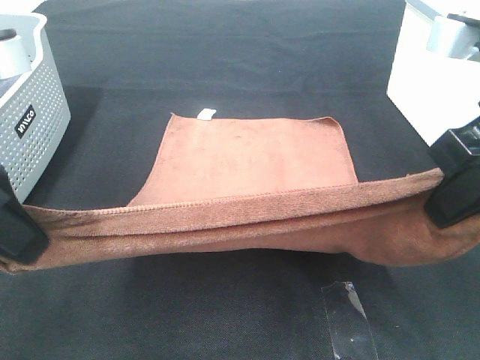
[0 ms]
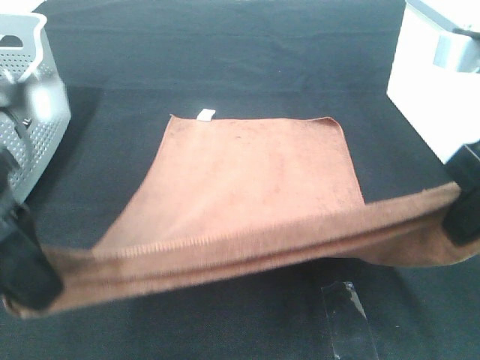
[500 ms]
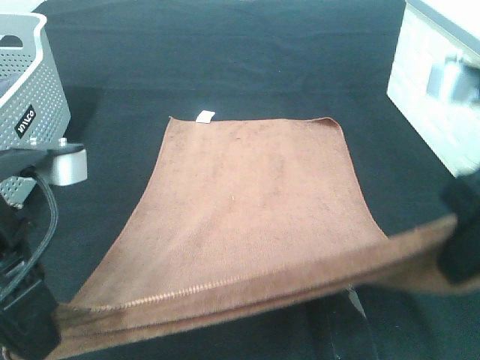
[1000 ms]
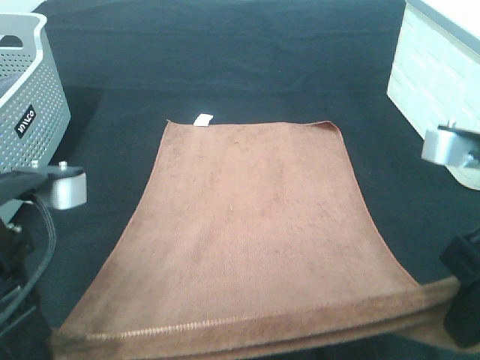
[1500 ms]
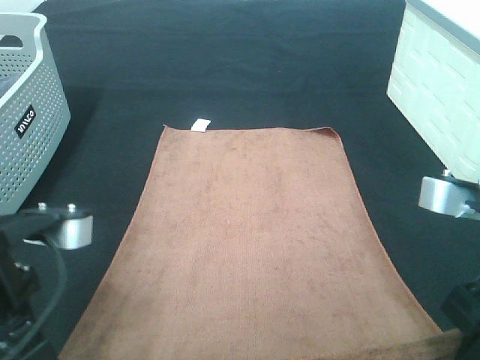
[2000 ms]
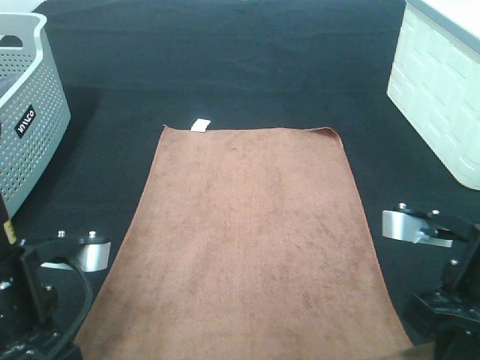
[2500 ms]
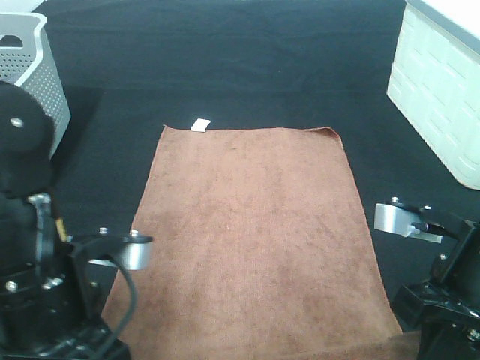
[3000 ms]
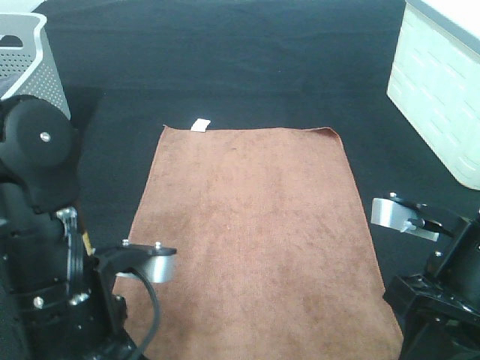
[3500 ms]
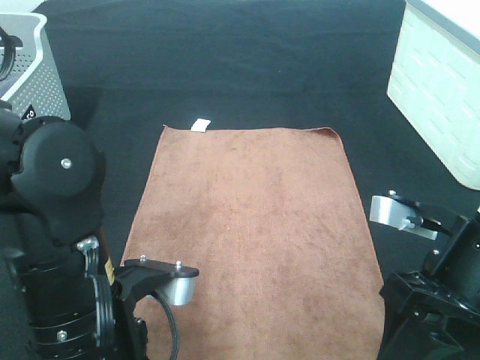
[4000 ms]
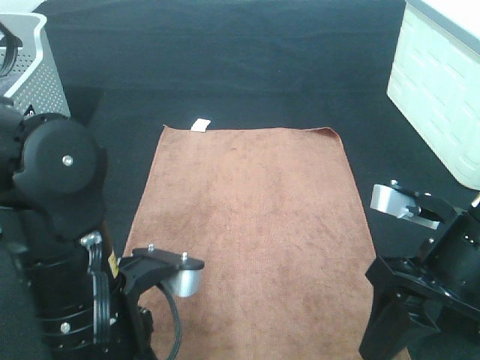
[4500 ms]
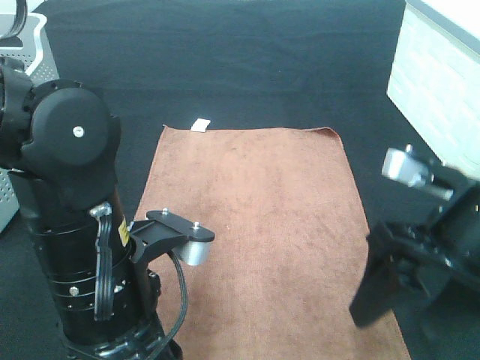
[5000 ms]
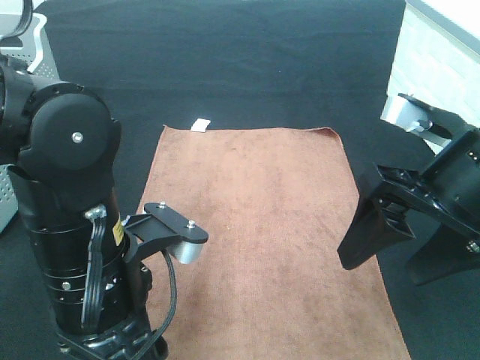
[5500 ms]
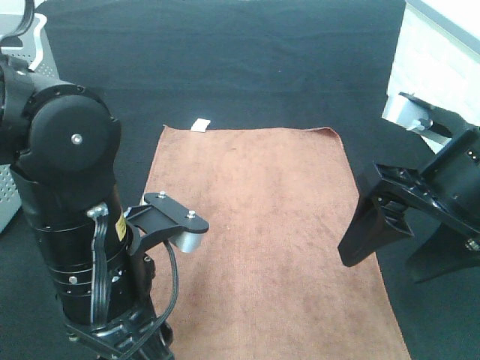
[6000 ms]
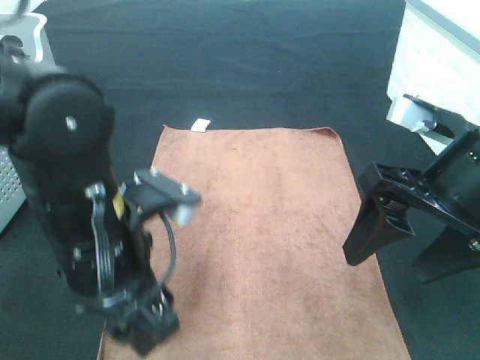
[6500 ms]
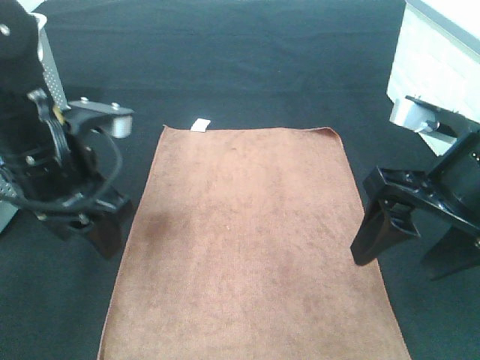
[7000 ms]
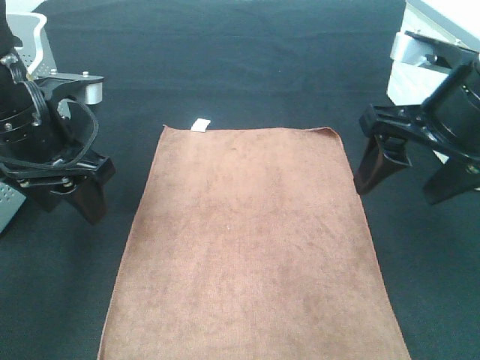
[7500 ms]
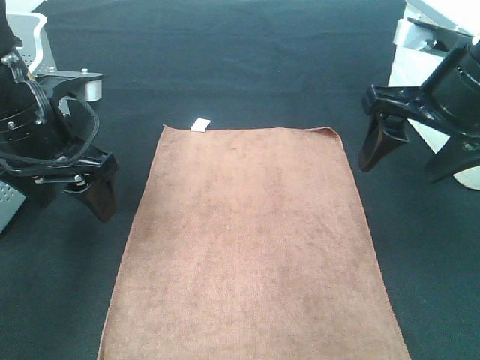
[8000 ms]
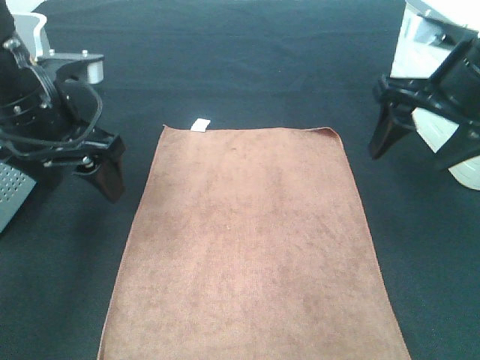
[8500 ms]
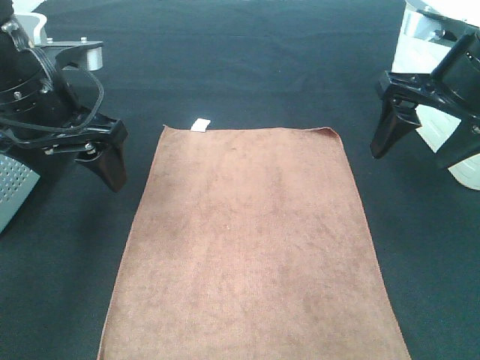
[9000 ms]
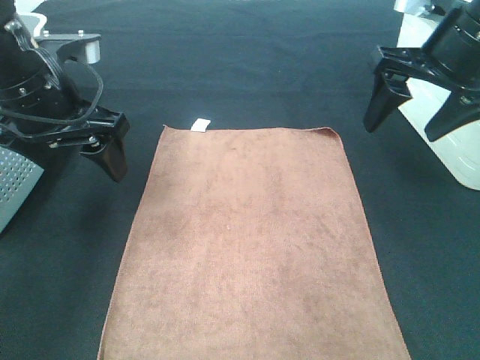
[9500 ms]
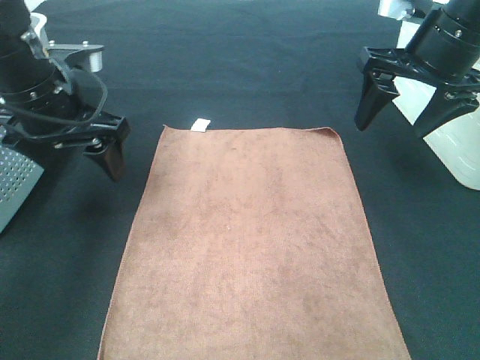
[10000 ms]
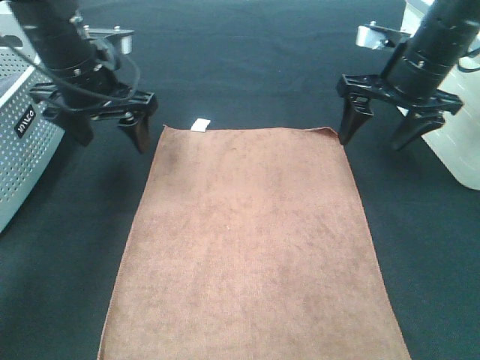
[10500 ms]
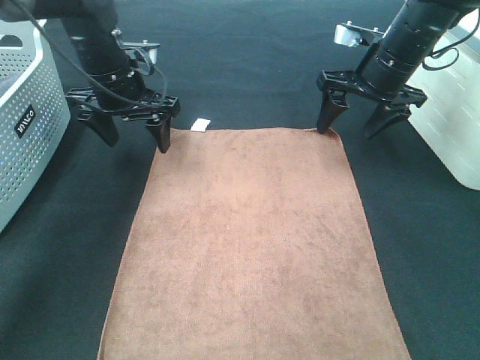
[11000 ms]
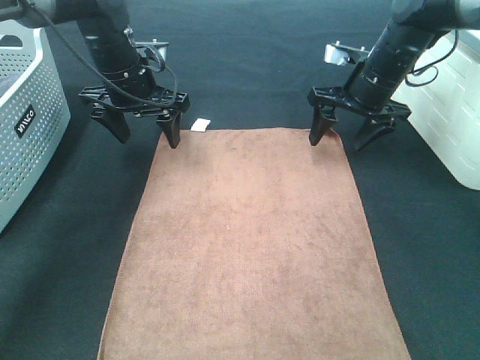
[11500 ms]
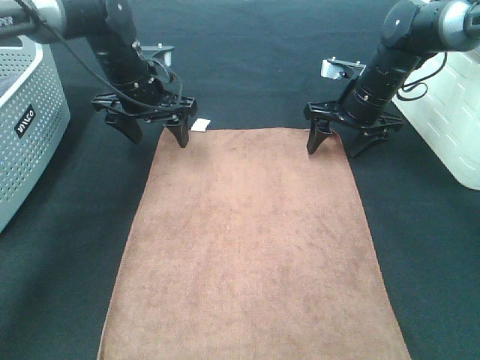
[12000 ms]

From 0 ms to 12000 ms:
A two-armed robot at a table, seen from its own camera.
Task of the whole recording: Remove the towel and place it.
From 0 ms to 2000 ms: The right gripper is displaced downward and backward by roughly 10 cm. The left gripper is displaced downward by approximately 10 cm.
From 2000 ms to 4000 ms: The left gripper goes approximately 10 cm to the right, and opens up. The right gripper changes place by some 5 cm, and opens up.
From 4000 ms to 6000 ms: The right gripper travels upward by about 5 cm.
From 6000 ms to 8000 ms: The left gripper shifts some 15 cm forward and to the left; the right gripper heads forward, covering about 10 cm.
From 8000 ms to 10000 ms: The right gripper heads forward, covering some 10 cm.
From 10000 ms to 12000 ms: The right gripper heads downward and forward, covering some 20 cm, while the left gripper heads forward and downward, covering some 15 cm.

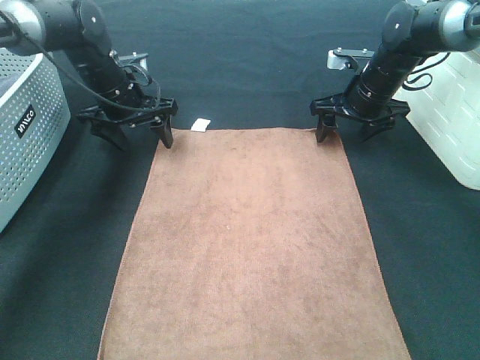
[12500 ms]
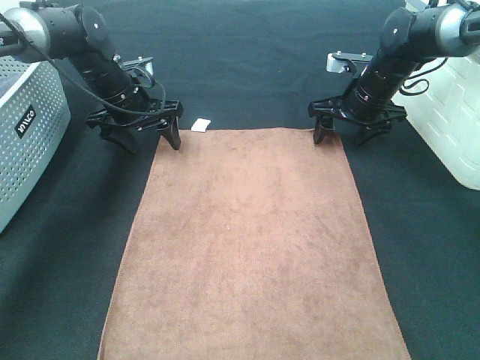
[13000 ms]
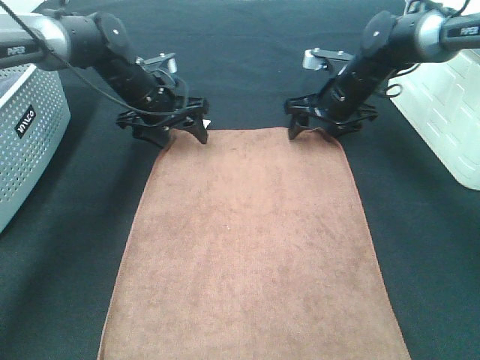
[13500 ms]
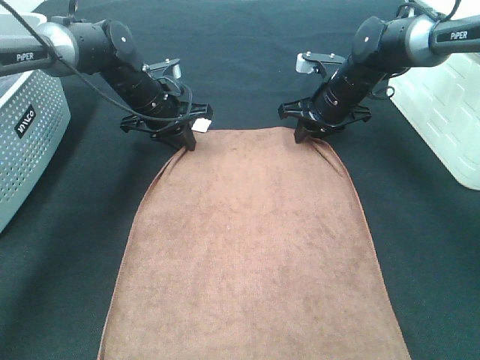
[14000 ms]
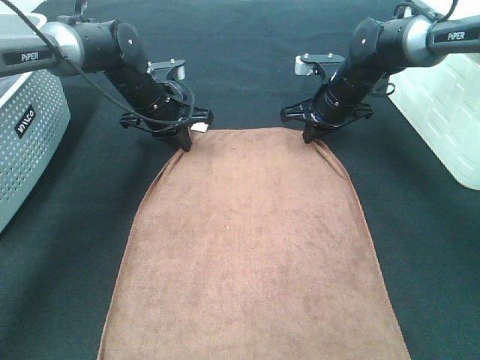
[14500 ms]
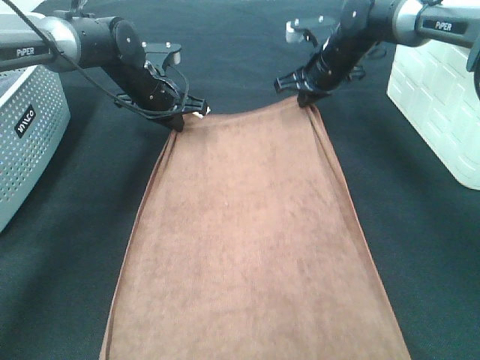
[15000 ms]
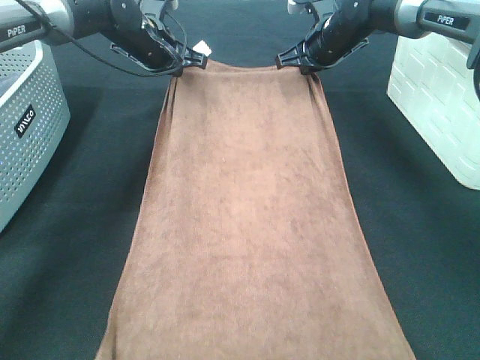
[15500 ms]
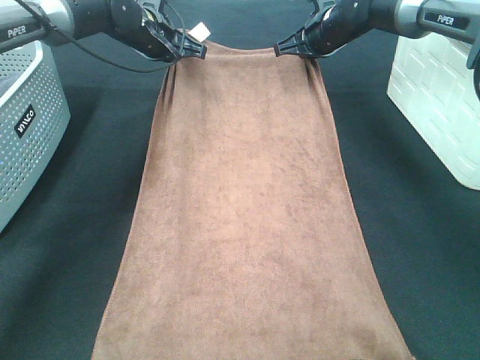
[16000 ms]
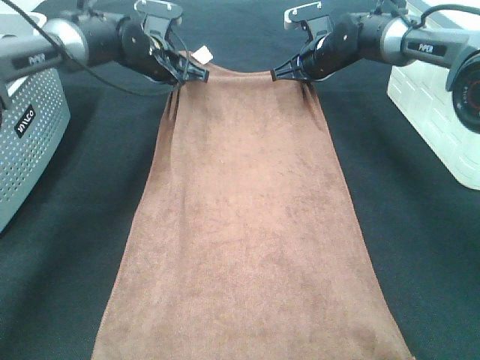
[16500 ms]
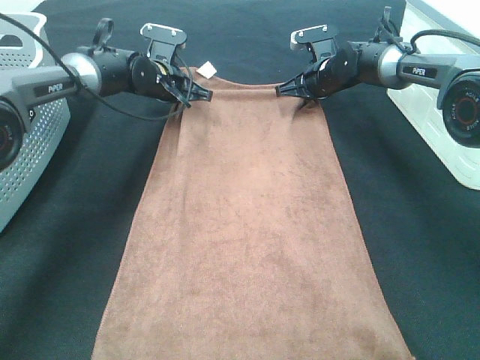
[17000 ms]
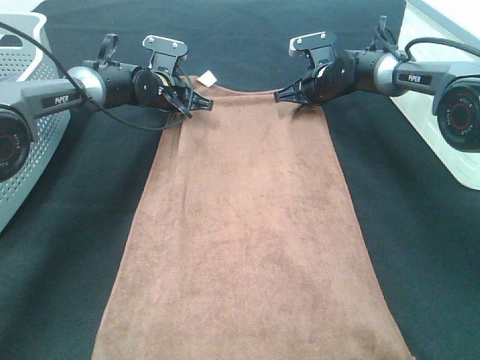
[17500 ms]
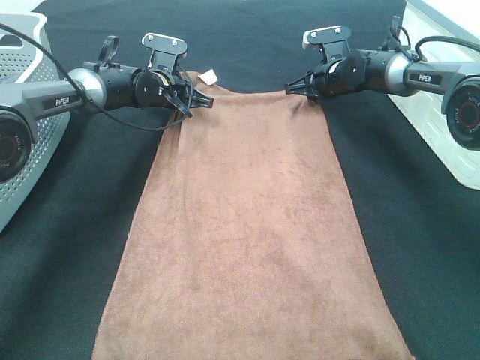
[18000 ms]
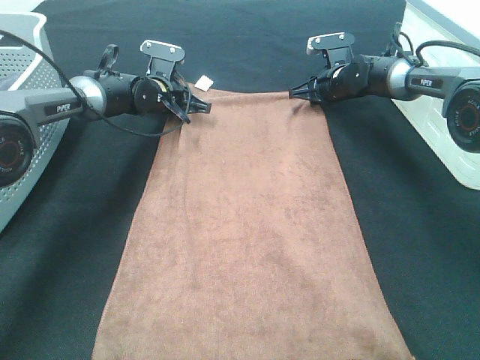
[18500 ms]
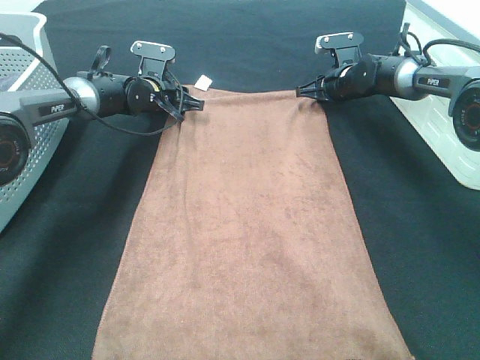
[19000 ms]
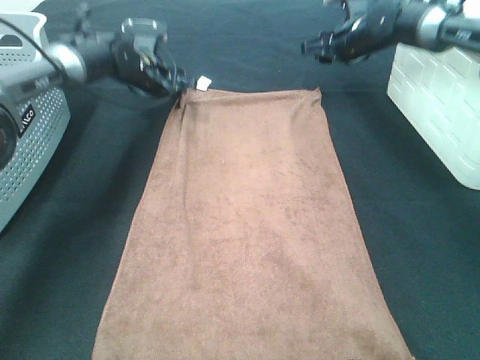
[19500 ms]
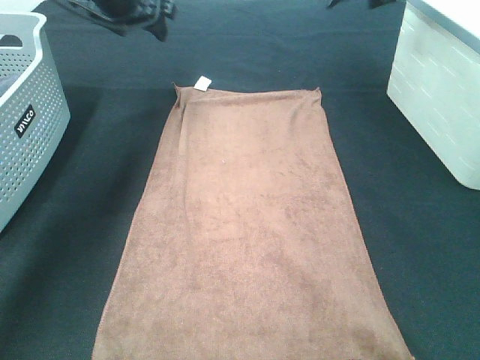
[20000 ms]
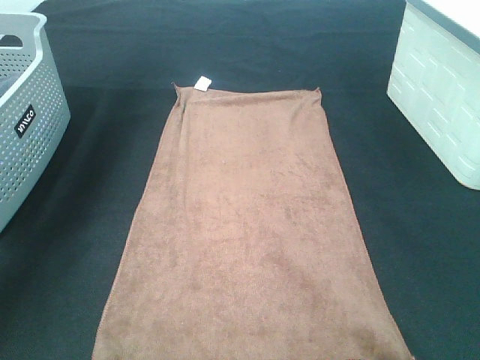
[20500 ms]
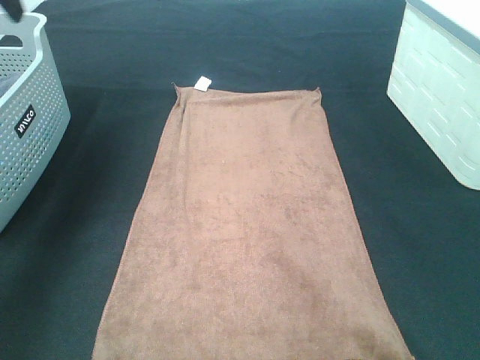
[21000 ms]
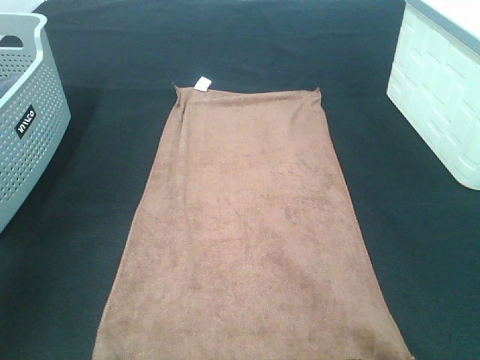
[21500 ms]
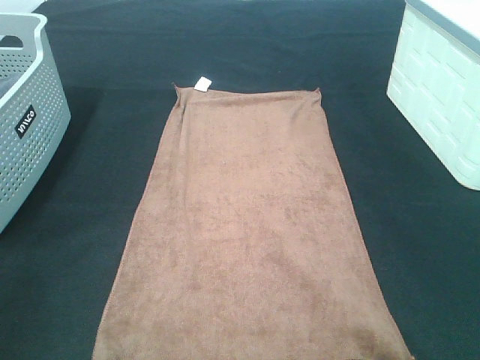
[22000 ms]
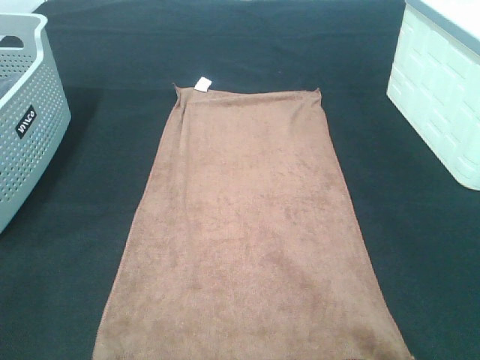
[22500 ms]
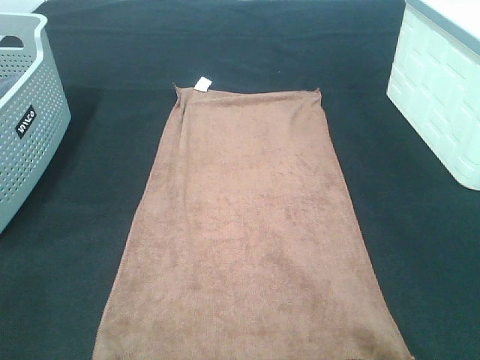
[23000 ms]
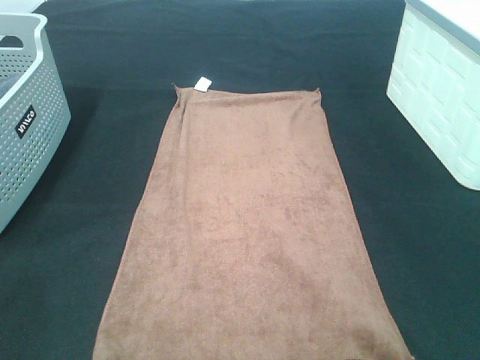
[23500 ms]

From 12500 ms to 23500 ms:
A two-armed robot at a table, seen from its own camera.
Task of the whole recording: Remove the towel and place it.
From 12500 ms to 14500 ms: The left gripper changes place by some 5 cm, and closes; the right gripper moves about 5 cm, and closes up.
From 14500 ms to 16000 ms: The right gripper moves upward and forward, about 10 cm. The left gripper heads upward, covering approximately 10 cm.
From 16000 ms to 18000 ms: The grippers both shift downward by approximately 10 cm. The right gripper opens.
From 18000 ms to 20000 ms: Both grippers travel together upward, some 20 cm. The left gripper opens. The right gripper opens.
From 20000 ms to 21500 ms: Both grippers travel together backward, about 40 cm.

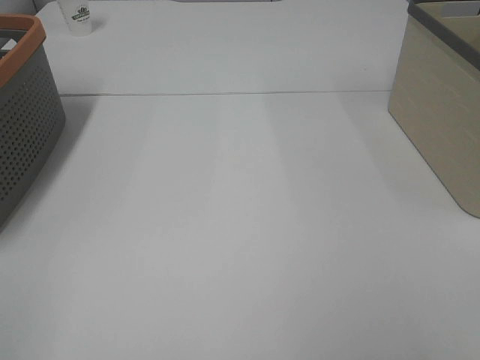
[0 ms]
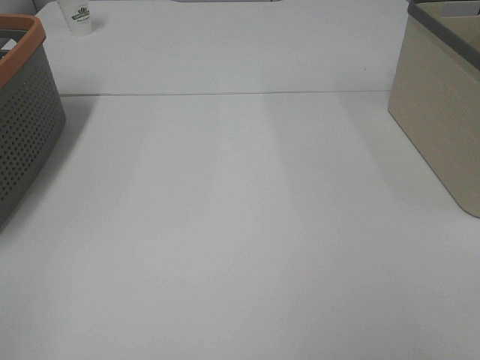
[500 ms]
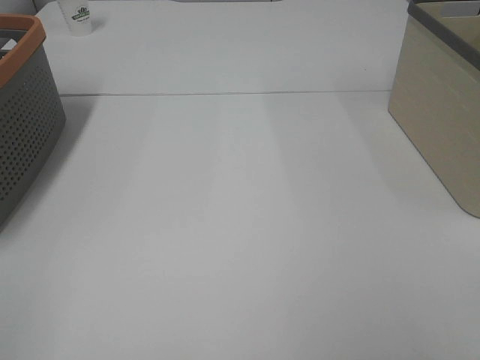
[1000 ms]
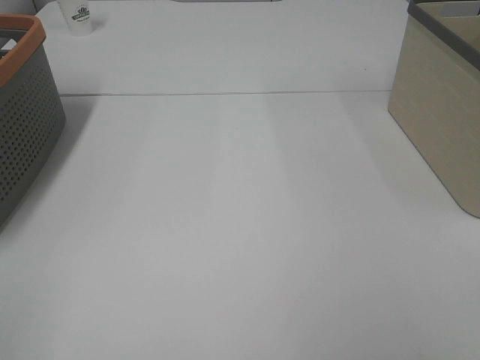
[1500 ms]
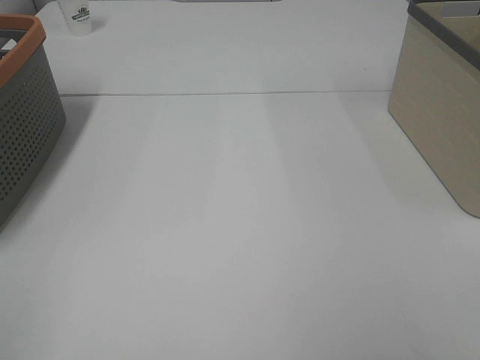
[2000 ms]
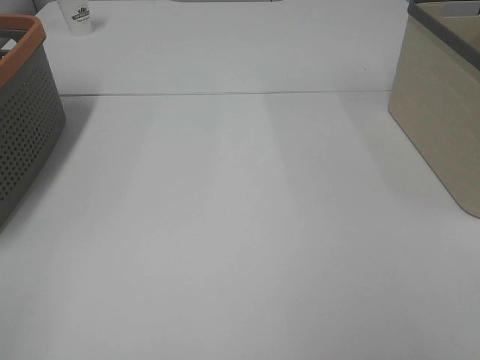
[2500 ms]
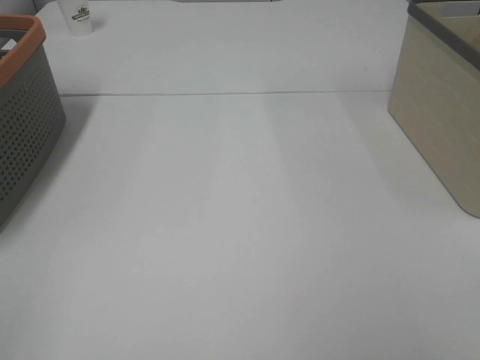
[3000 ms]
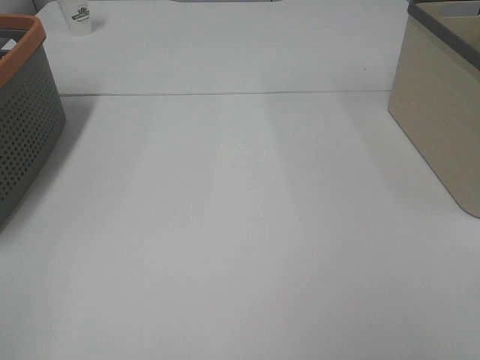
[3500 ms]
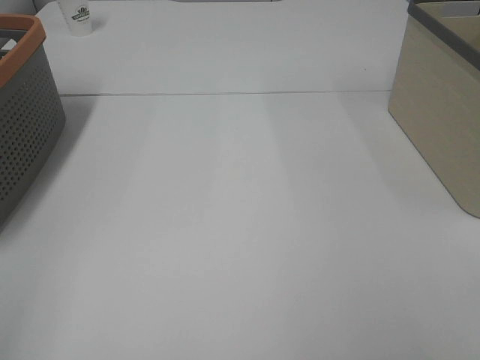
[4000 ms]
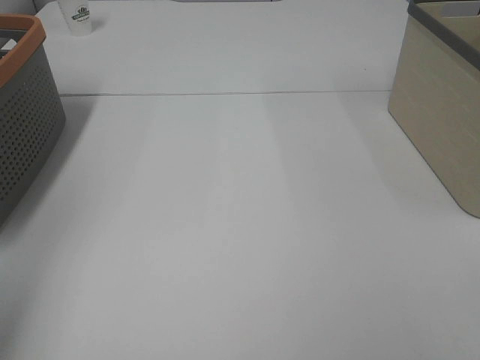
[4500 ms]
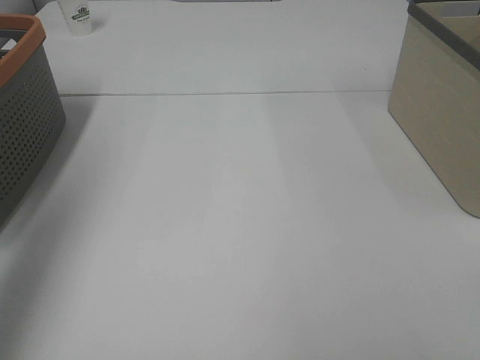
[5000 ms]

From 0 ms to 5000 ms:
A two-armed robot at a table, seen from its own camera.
Task of the whole recording: Remove the towel and place it.
From 0 ms to 2500 ms: Both grippers stay about where they are.
From 2500 ms to 5000 ms: The left gripper shifts approximately 25 cm forward and upward.
